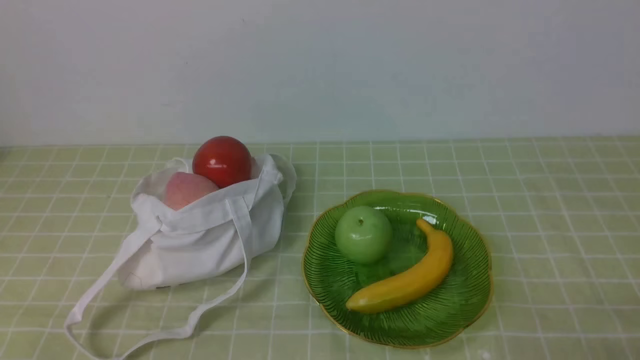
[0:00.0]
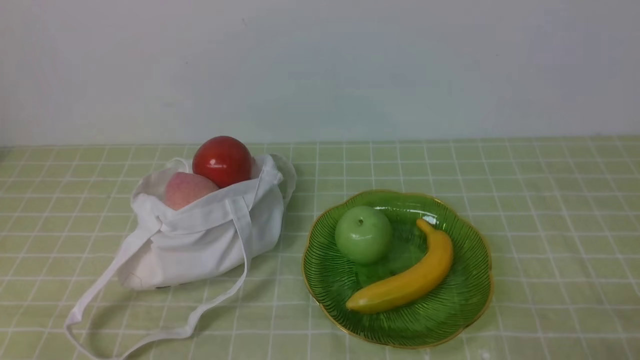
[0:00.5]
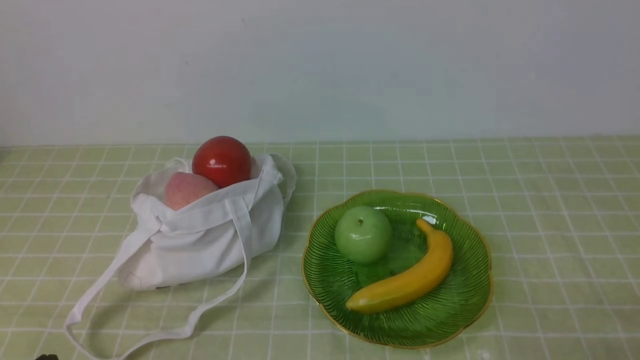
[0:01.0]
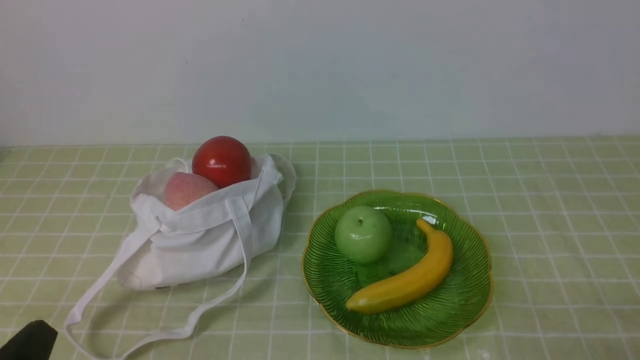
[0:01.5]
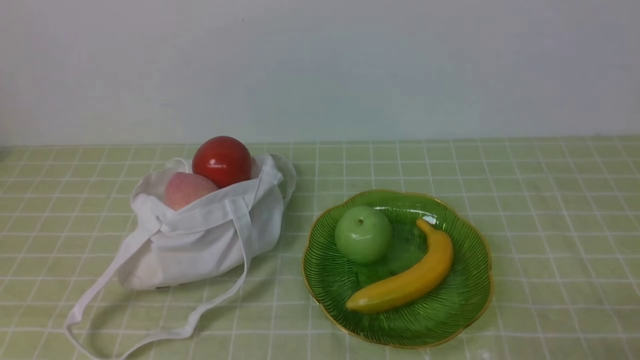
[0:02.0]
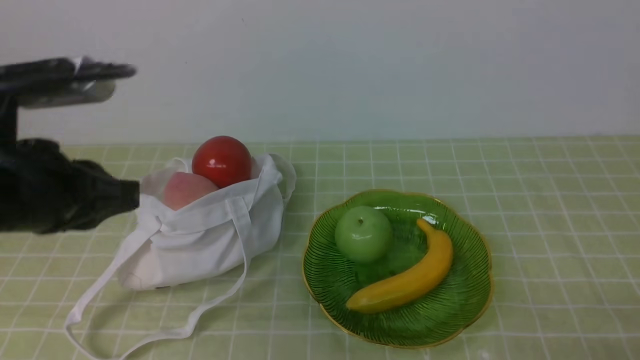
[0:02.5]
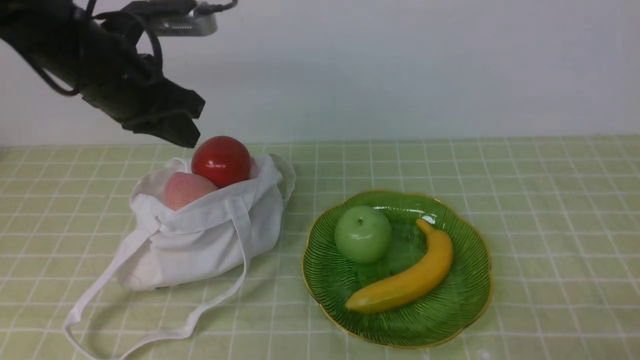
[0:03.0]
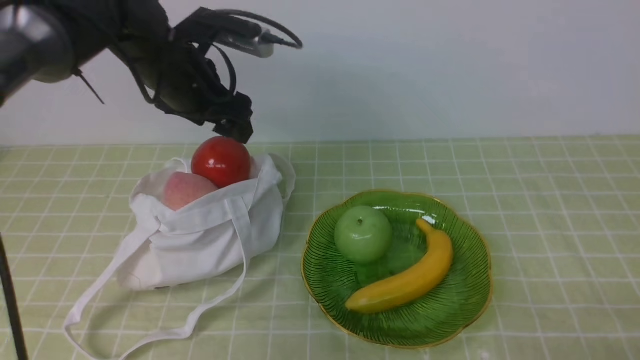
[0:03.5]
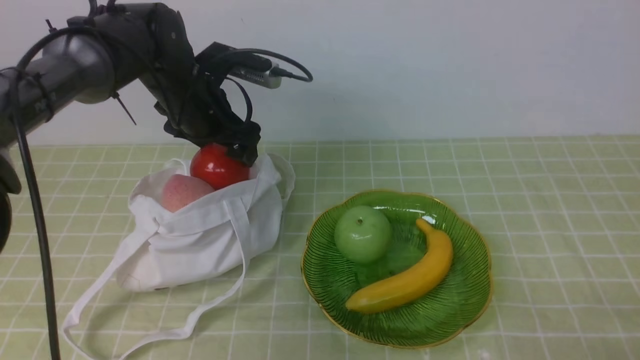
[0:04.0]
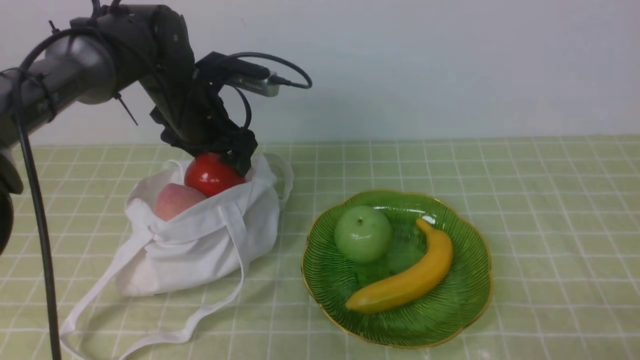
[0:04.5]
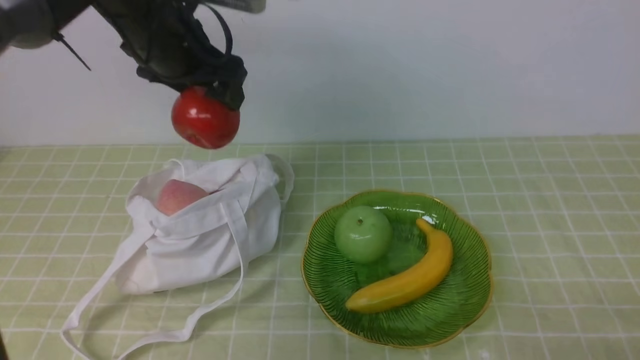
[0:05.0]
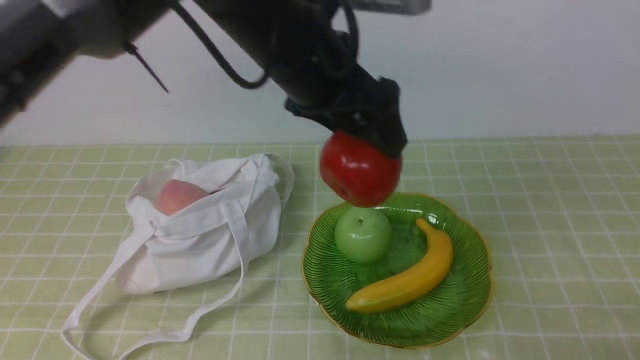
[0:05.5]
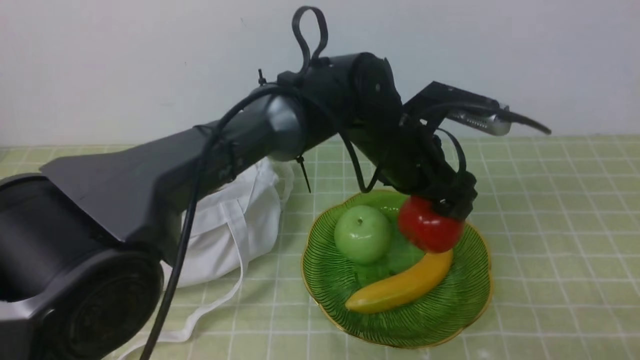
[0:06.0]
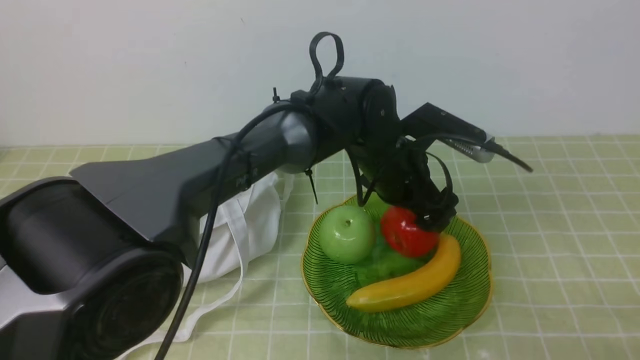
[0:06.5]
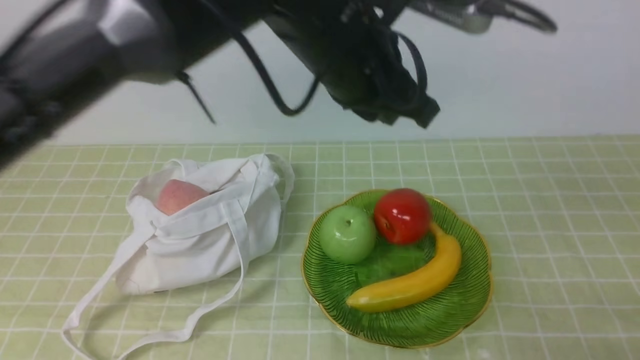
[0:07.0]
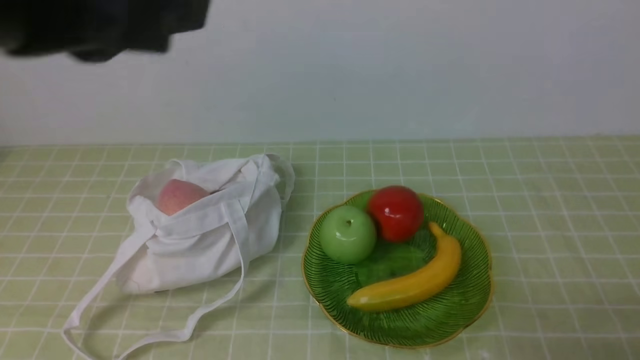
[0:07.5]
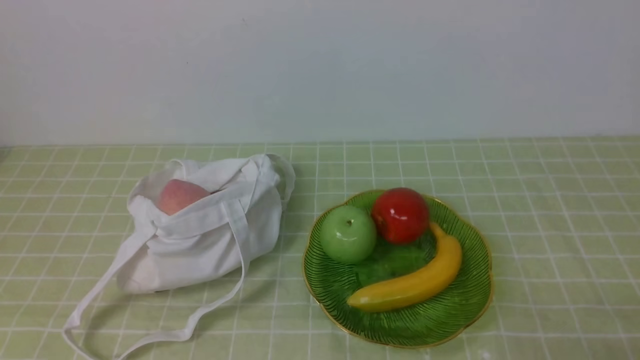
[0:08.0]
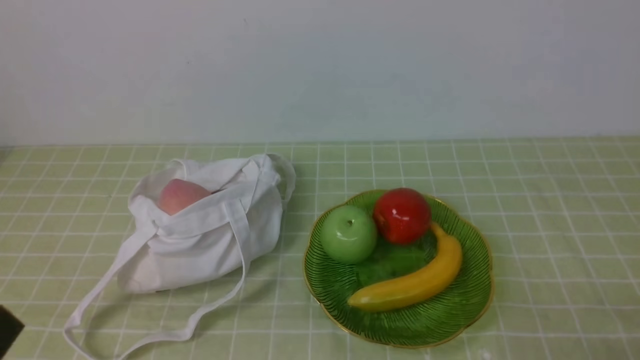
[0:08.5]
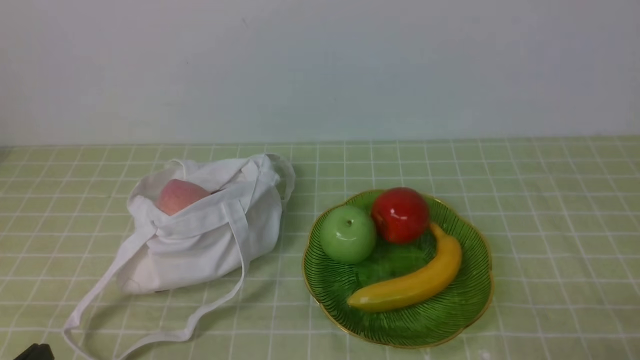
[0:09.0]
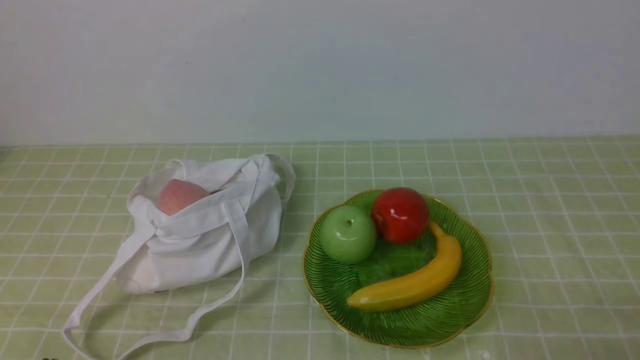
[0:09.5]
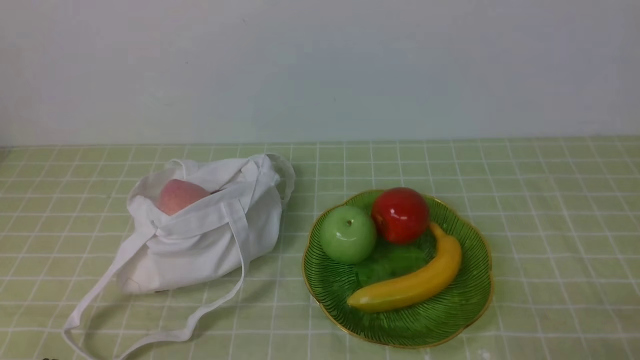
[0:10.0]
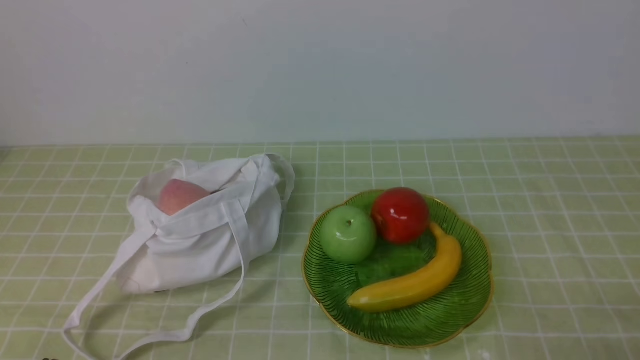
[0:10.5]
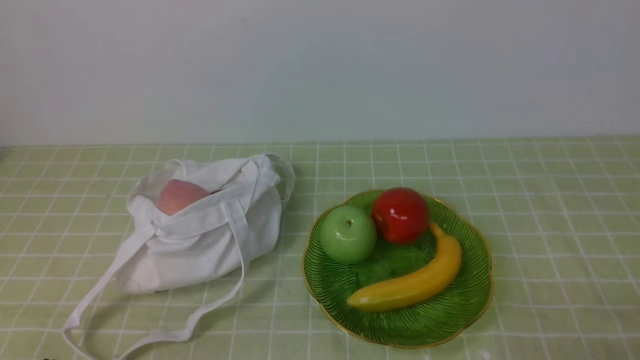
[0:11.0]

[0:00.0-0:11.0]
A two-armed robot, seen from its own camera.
Step, 0:00.0 to 0:04.5: use the left arm to grab an apple from the bag.
Step, 0:05.0 to 0:06.5: use the left arm to put the apple into the empty plate on the right.
0:02.0 to 0:03.5: The left gripper moves forward, some 35 cm, and opens up.
0:03.5 to 0:05.5: The left gripper shifts roughly 15 cm to the right, upward and backward.
0:05.5 to 0:07.5: The left gripper heads backward and upward, covering approximately 20 cm, and closes its fingers.
0:07.5 to 0:09.0: The left gripper goes about 35 cm downward, to the left and backward.

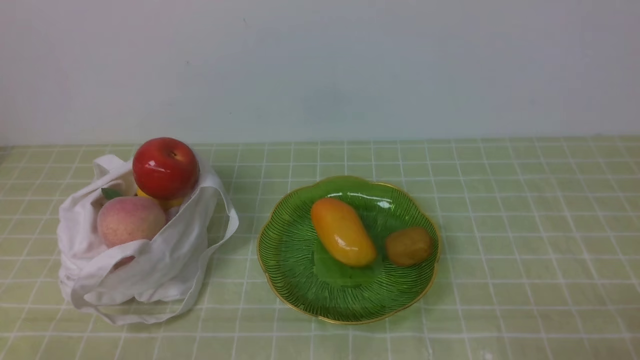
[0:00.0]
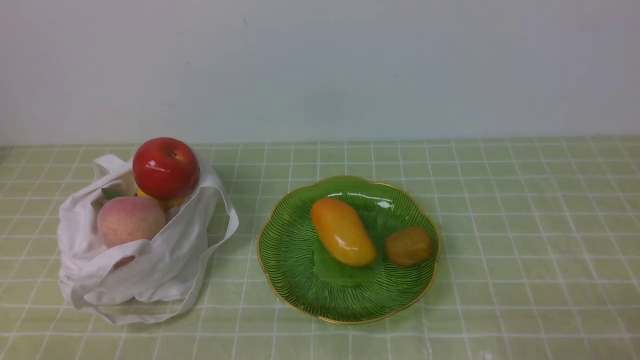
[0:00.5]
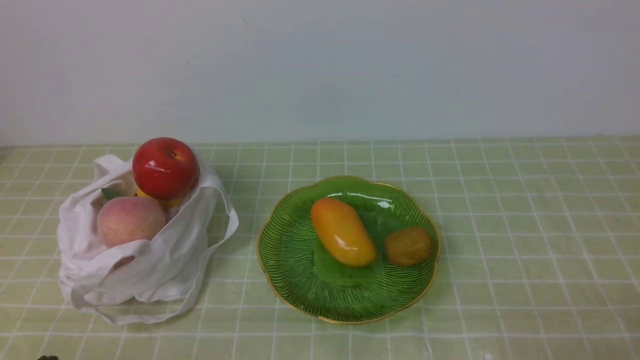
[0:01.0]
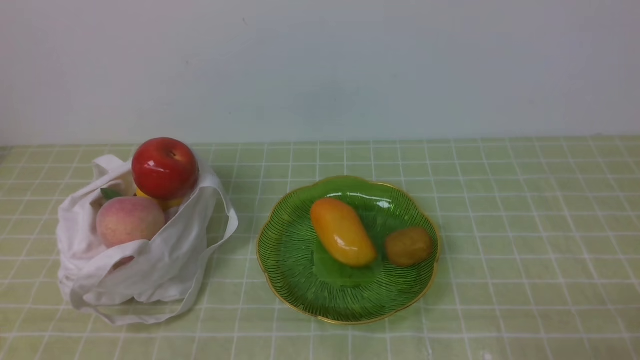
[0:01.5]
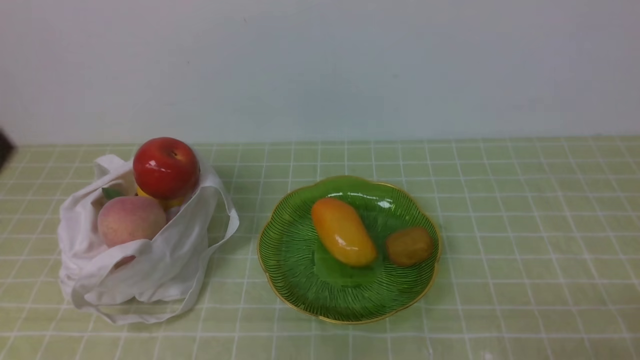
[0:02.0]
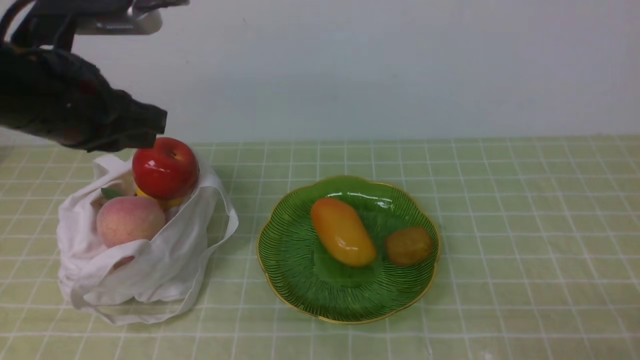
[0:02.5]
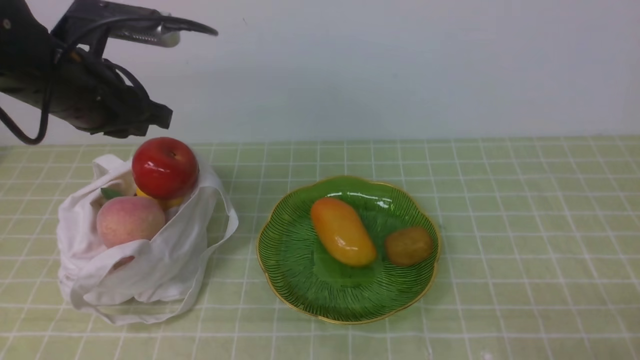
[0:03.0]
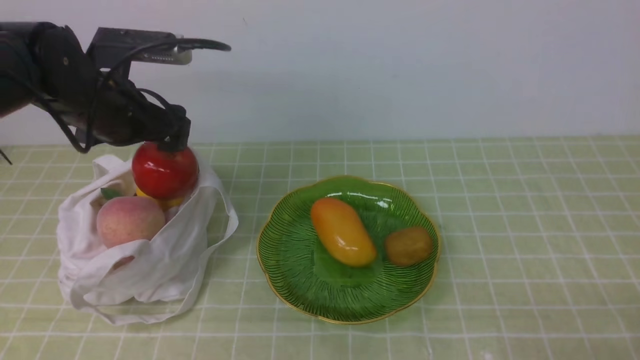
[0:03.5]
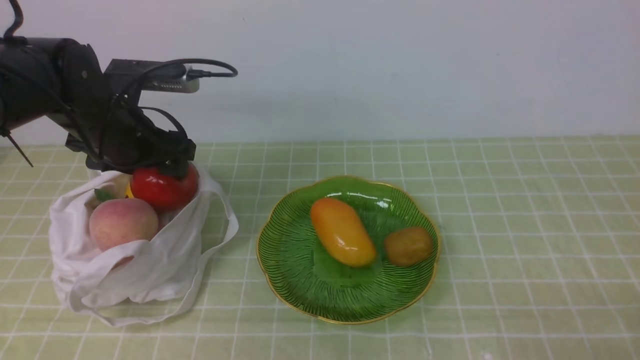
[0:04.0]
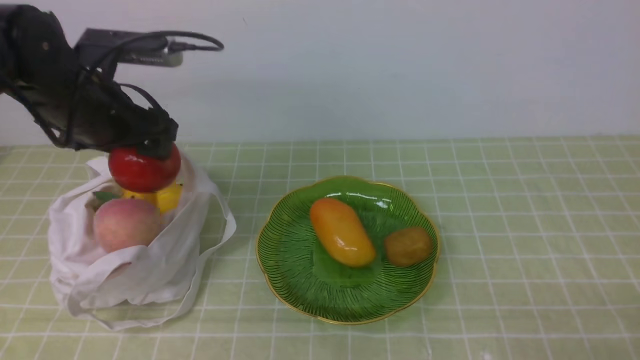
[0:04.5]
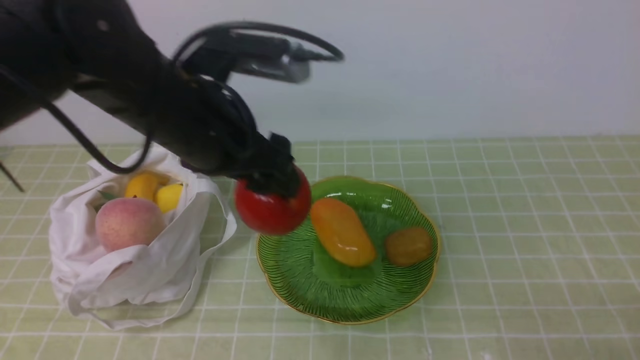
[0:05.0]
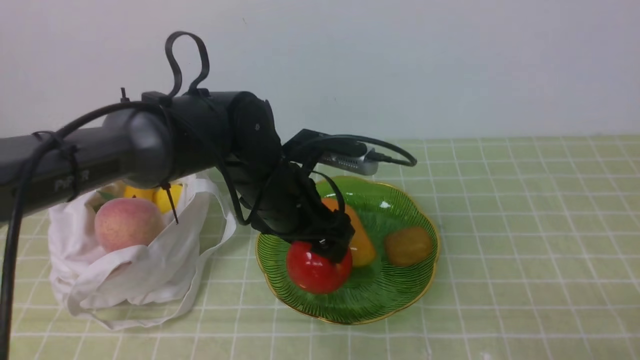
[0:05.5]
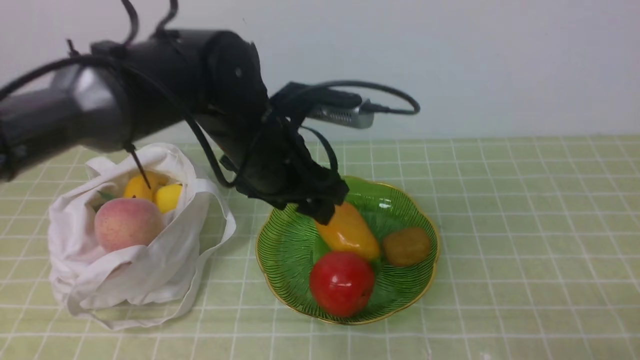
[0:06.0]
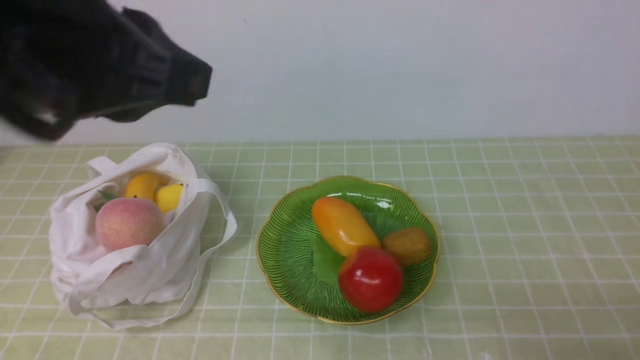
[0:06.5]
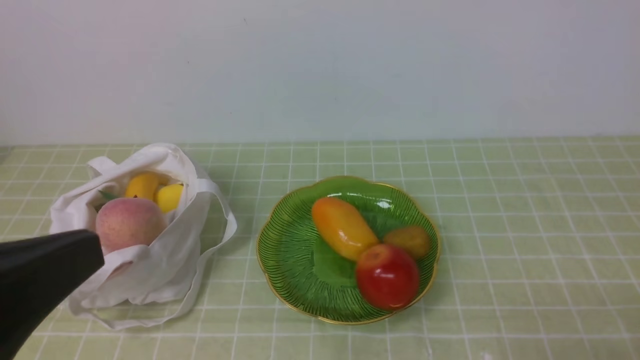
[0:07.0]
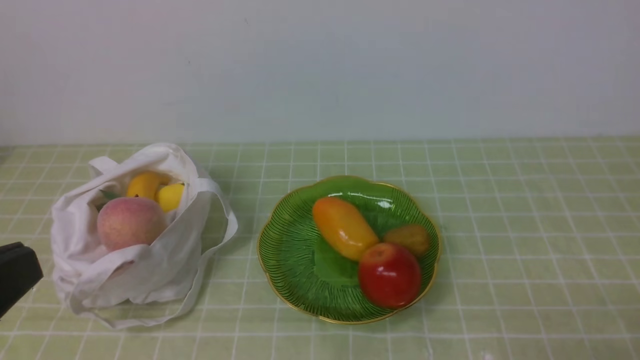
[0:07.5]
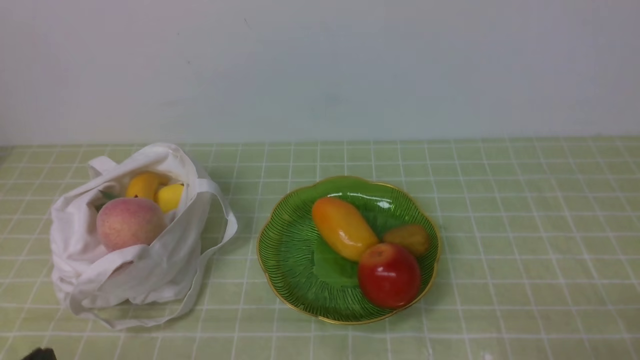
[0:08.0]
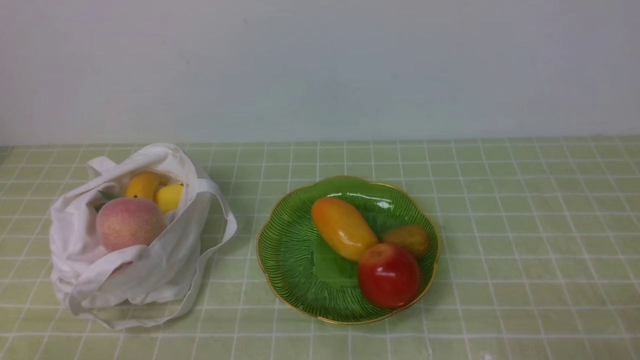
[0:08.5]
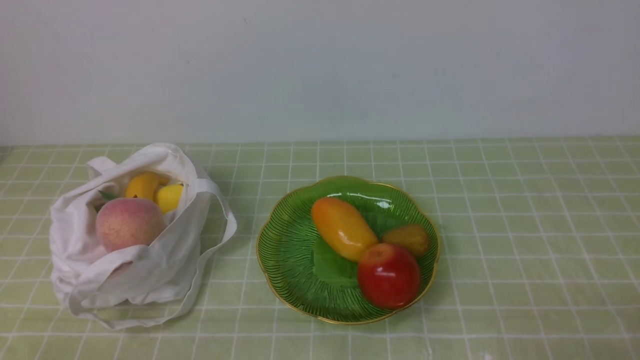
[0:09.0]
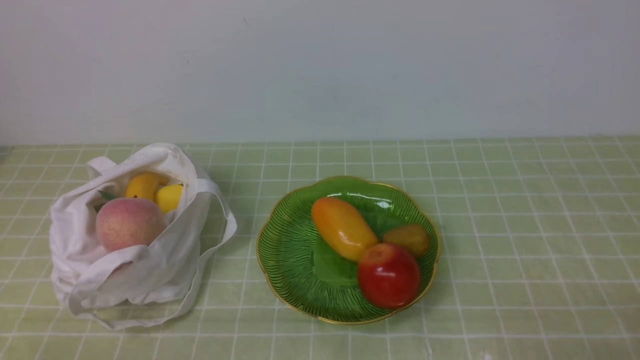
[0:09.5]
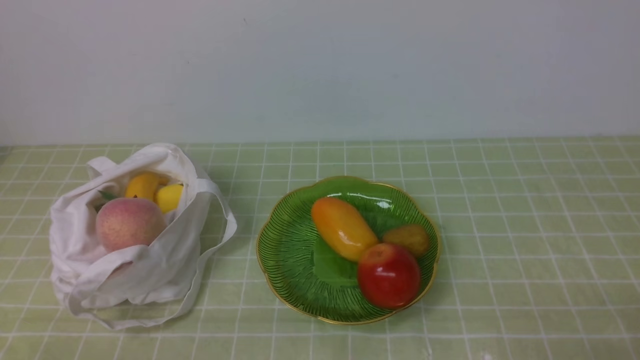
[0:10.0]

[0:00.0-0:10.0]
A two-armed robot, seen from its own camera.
Step, 0:00.0 to 0:04.0: use the left arm to grab an apple from the bag.
Step, 0:04.5 to 0:05.5: use the left arm to put the apple into the empty plate on the right.
0:02.0 to 0:04.0: The left gripper travels forward by some 30 cm, and opens.
0:04.0 to 0:06.0: The left gripper shifts roughly 15 cm to the right.
0:06.0 to 0:08.0: The left gripper moves backward and to the left, some 35 cm, and closes.
